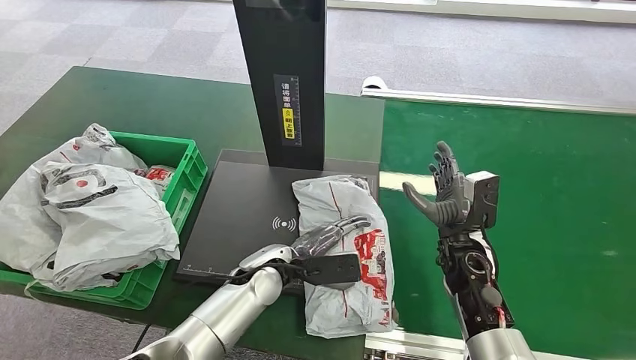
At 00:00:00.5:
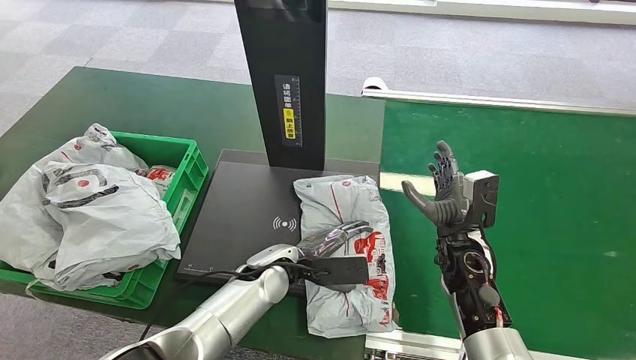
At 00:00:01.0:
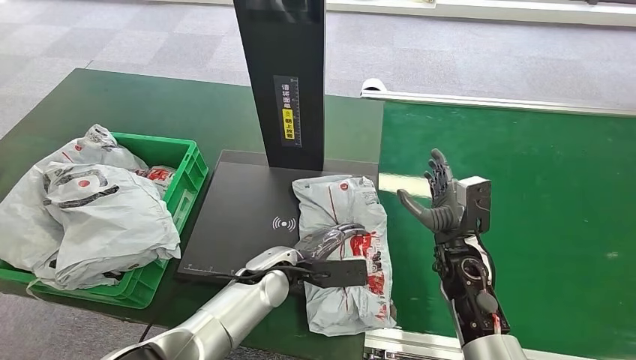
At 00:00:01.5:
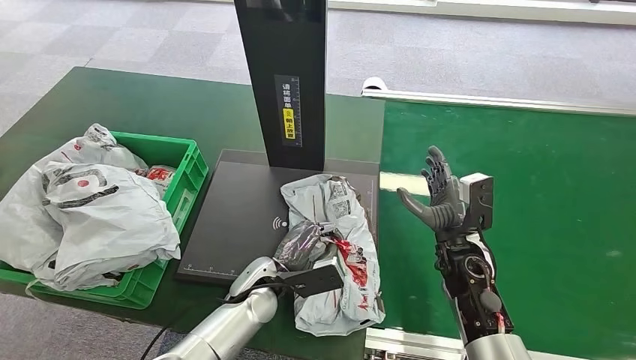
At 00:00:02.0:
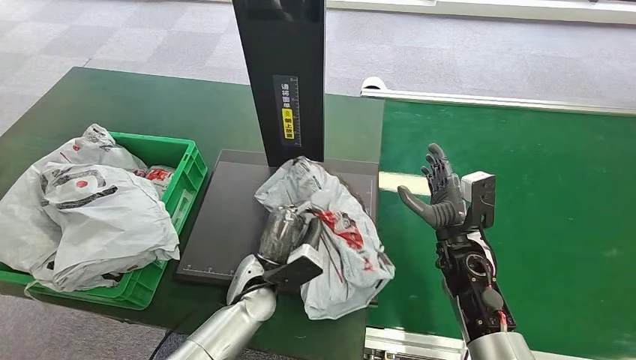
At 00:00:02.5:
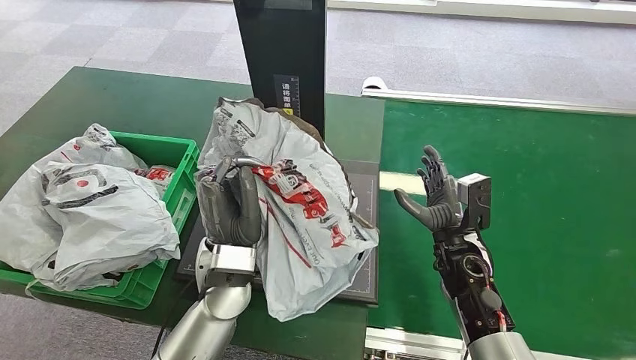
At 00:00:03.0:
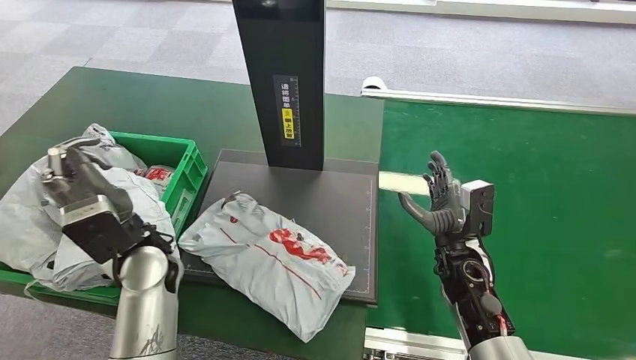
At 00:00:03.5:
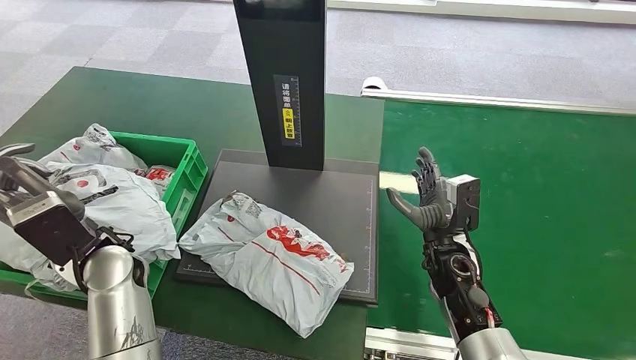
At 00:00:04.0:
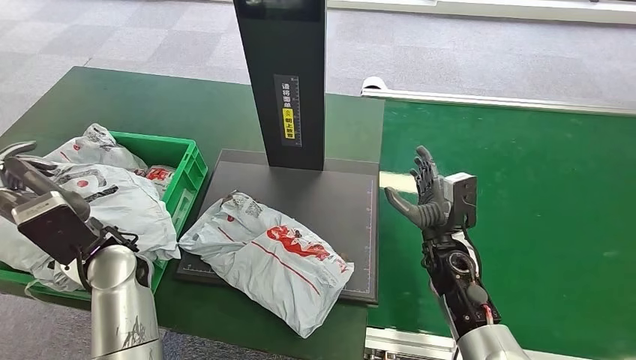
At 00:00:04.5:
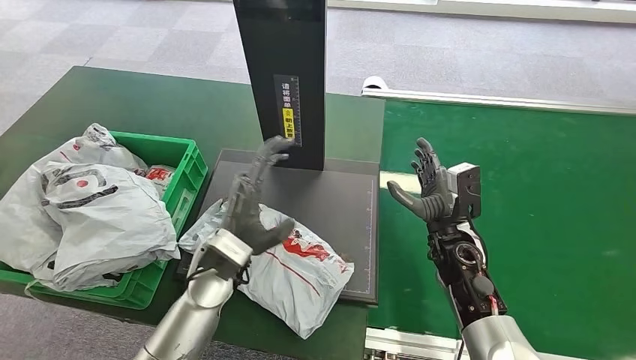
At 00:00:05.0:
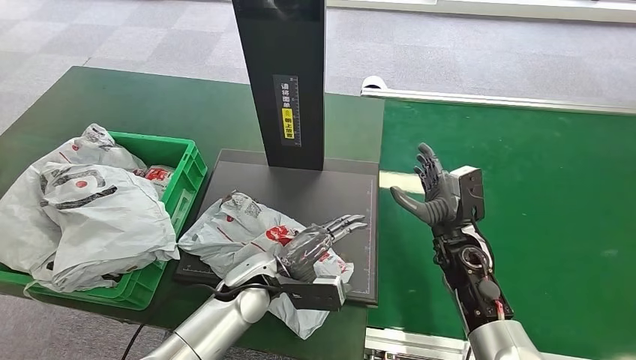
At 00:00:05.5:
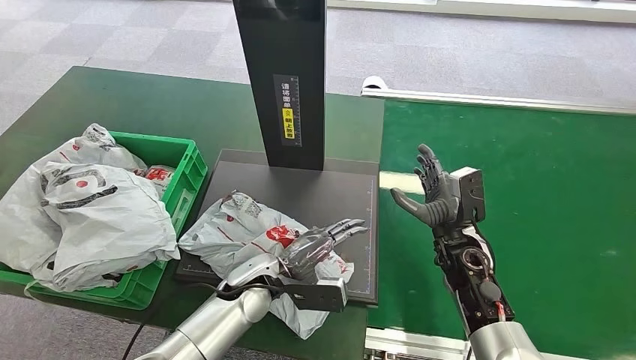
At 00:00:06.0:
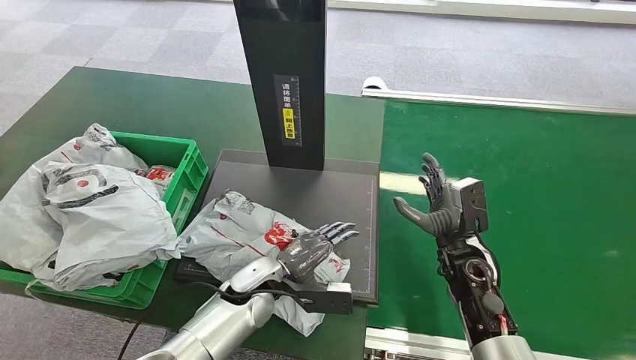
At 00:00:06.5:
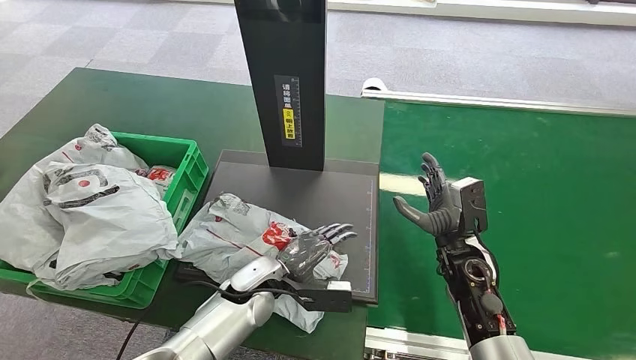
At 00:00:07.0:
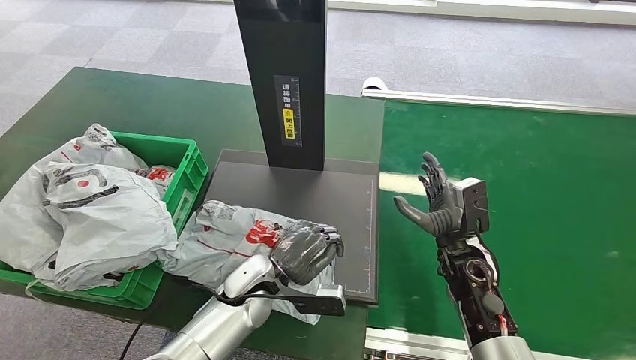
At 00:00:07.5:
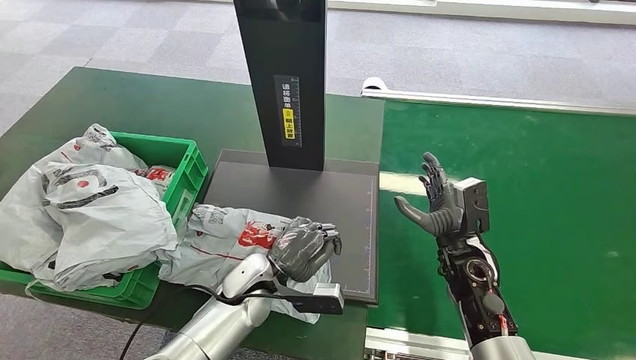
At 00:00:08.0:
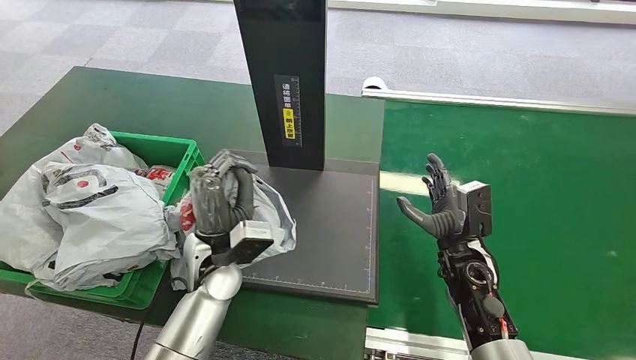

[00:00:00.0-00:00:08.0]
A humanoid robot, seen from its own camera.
Step, 00:00:00.0 to 00:00:02.5: Pick up the package from the inbound machine.
Step, 00:00:03.0 to 00:00:08.0: Place the package into the parcel locker.
00:00:04.0 to 00:00:06.0: The left hand travels to the right and downward by roughly 20 cm.
00:00:06.0 to 00:00:08.0: The left hand is displaced upward by about 10 cm.
